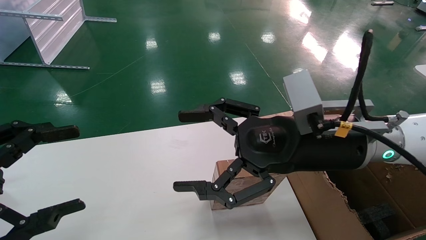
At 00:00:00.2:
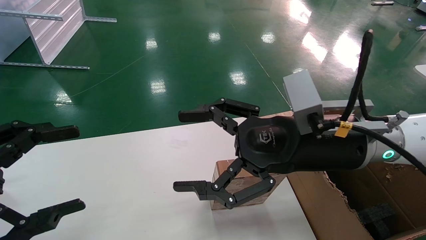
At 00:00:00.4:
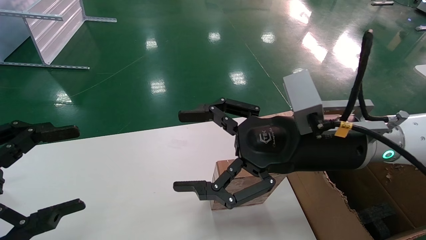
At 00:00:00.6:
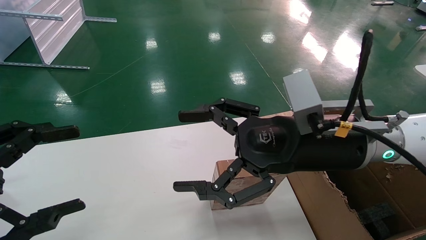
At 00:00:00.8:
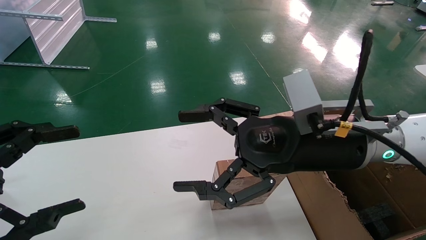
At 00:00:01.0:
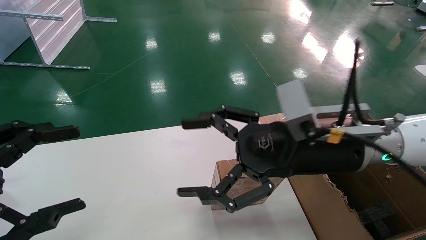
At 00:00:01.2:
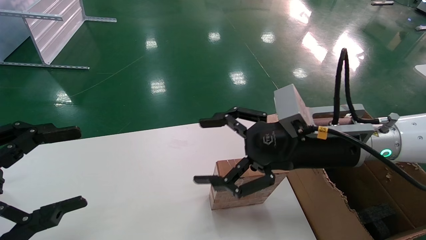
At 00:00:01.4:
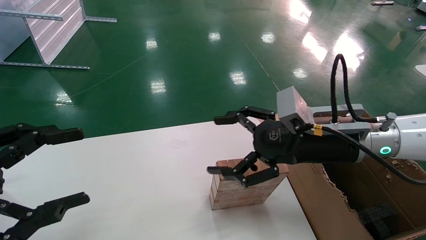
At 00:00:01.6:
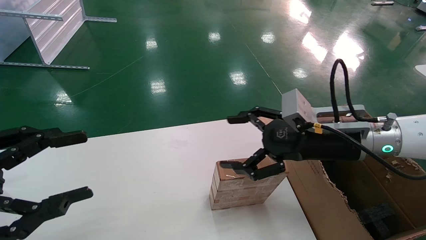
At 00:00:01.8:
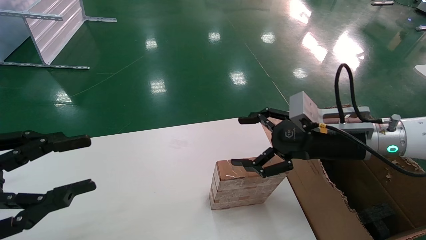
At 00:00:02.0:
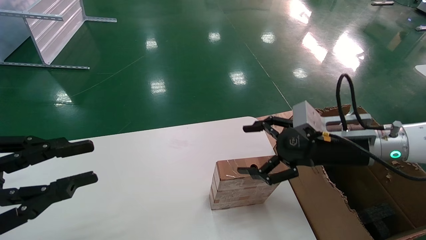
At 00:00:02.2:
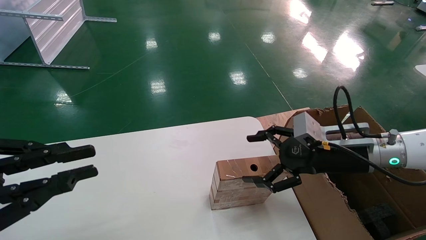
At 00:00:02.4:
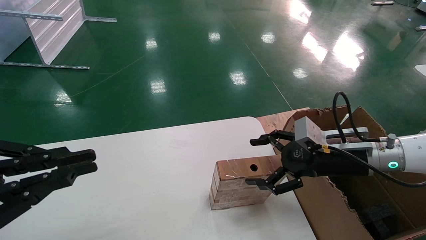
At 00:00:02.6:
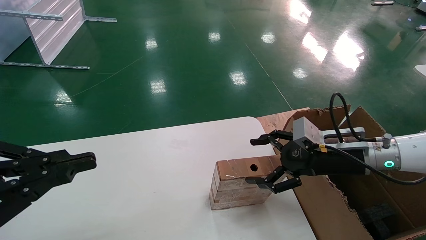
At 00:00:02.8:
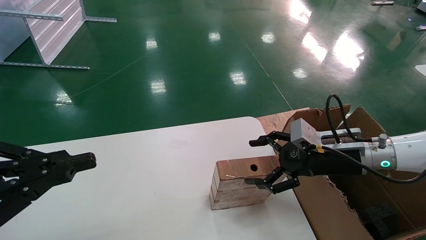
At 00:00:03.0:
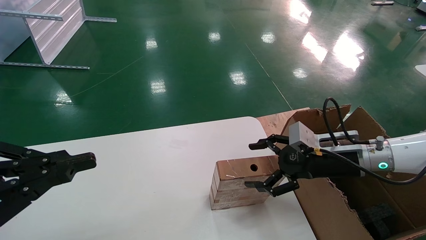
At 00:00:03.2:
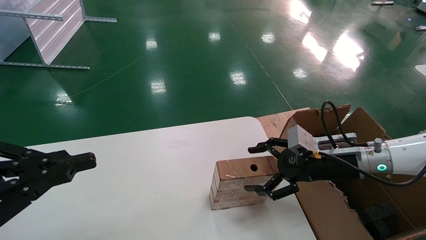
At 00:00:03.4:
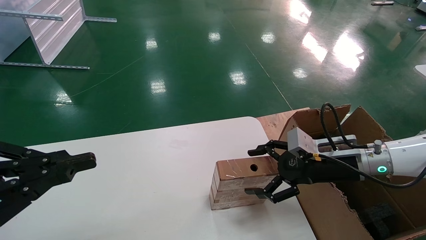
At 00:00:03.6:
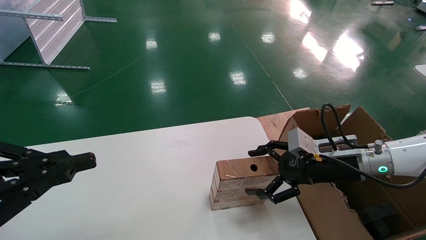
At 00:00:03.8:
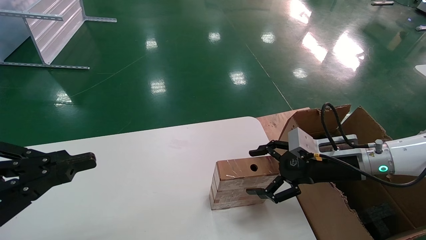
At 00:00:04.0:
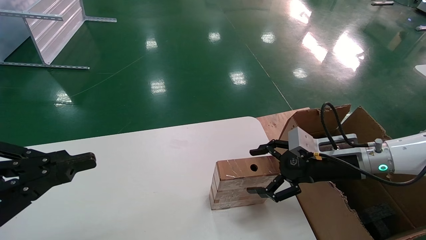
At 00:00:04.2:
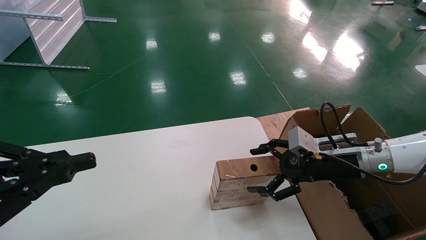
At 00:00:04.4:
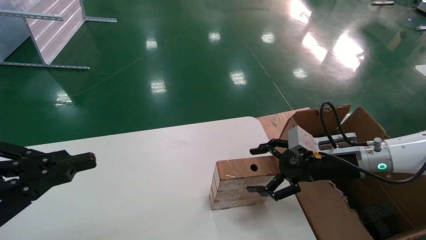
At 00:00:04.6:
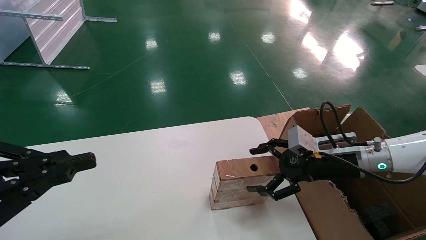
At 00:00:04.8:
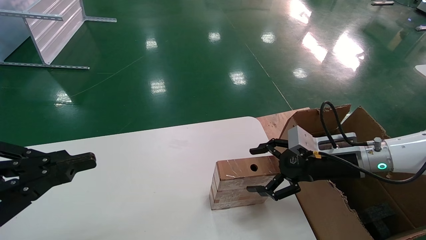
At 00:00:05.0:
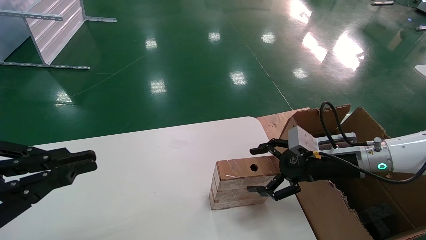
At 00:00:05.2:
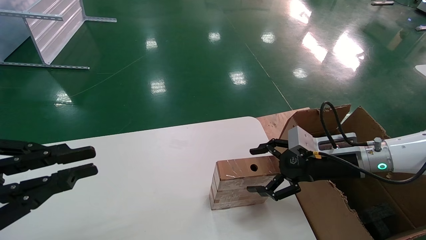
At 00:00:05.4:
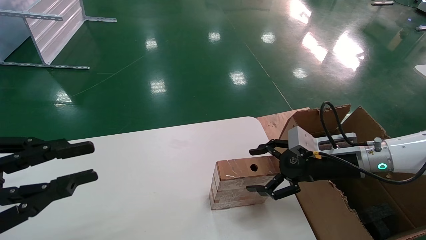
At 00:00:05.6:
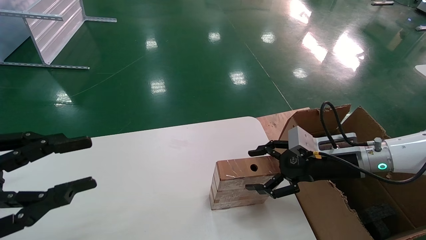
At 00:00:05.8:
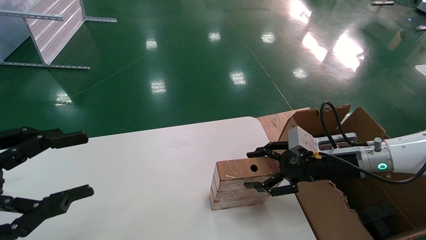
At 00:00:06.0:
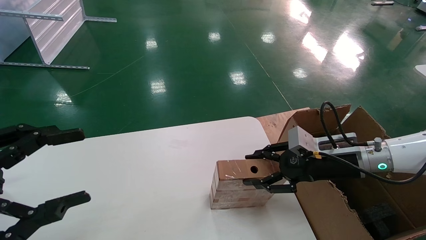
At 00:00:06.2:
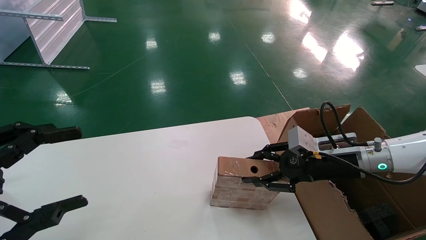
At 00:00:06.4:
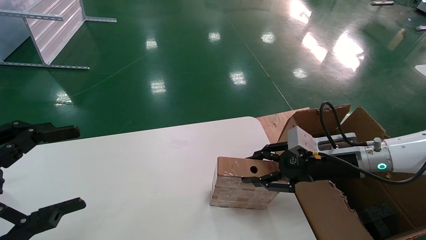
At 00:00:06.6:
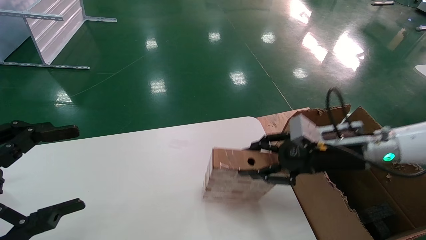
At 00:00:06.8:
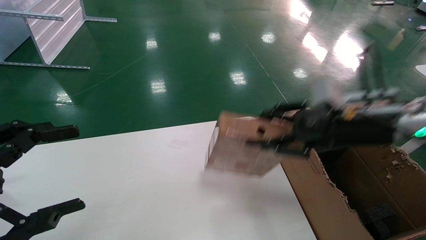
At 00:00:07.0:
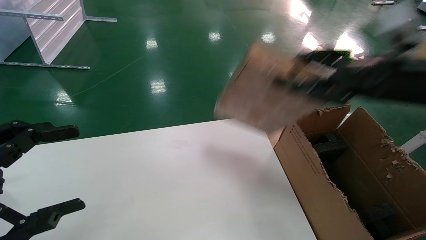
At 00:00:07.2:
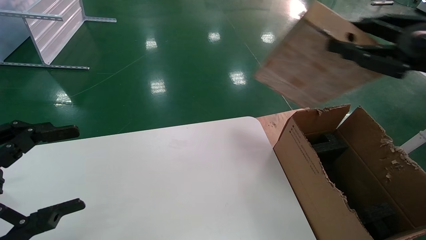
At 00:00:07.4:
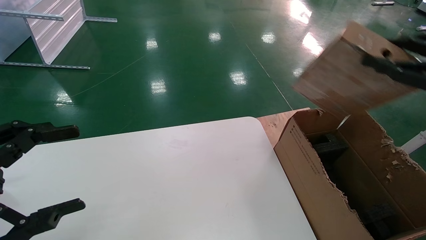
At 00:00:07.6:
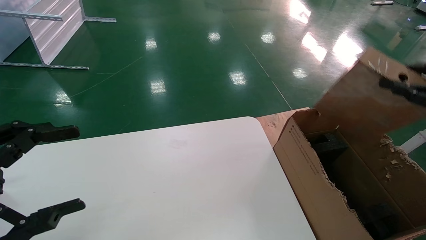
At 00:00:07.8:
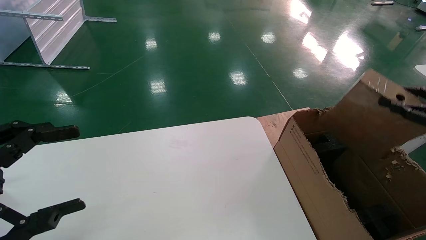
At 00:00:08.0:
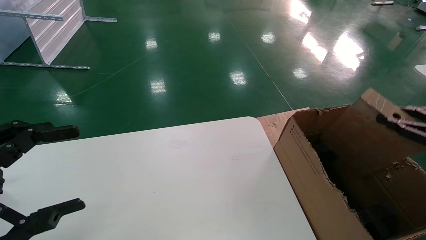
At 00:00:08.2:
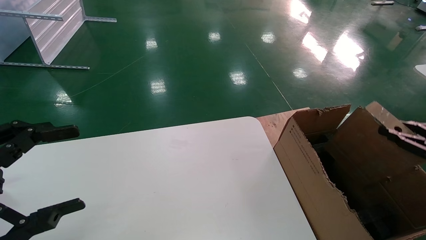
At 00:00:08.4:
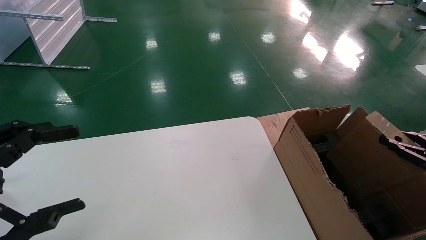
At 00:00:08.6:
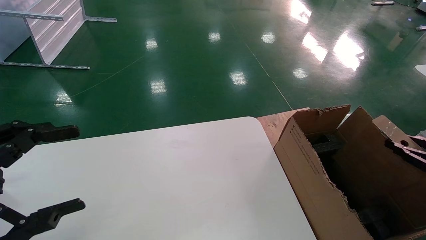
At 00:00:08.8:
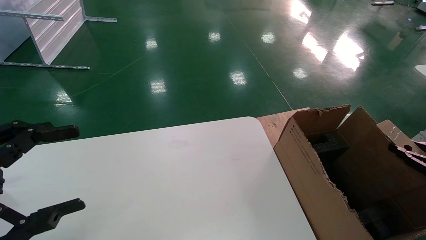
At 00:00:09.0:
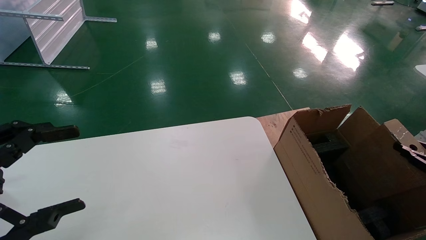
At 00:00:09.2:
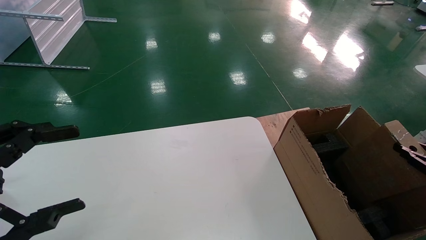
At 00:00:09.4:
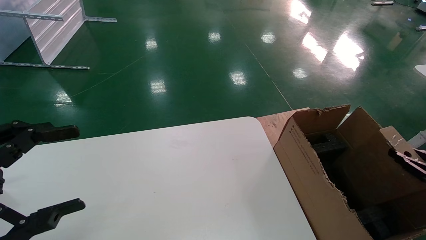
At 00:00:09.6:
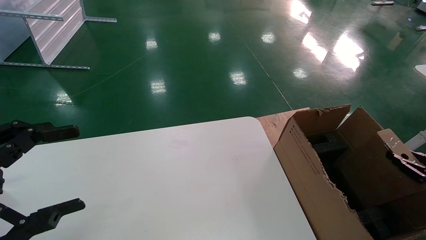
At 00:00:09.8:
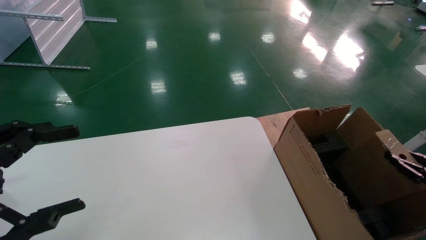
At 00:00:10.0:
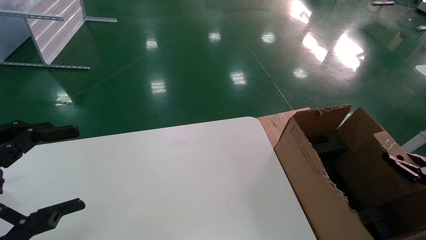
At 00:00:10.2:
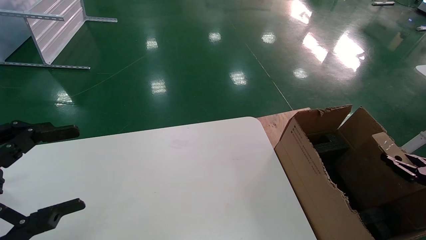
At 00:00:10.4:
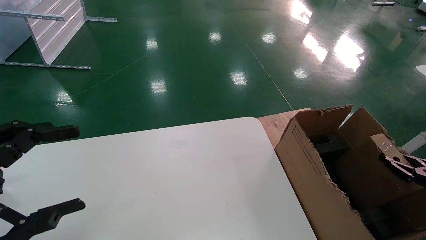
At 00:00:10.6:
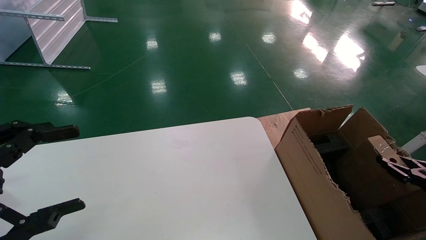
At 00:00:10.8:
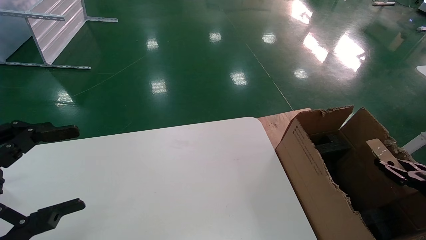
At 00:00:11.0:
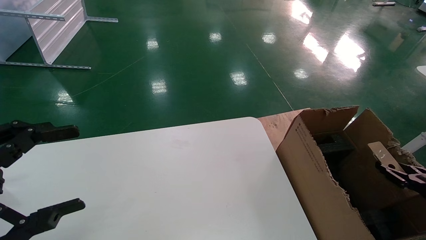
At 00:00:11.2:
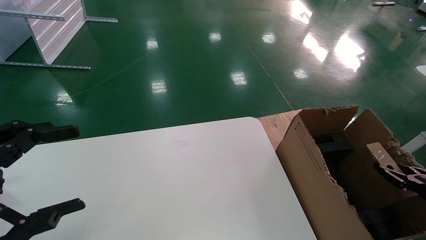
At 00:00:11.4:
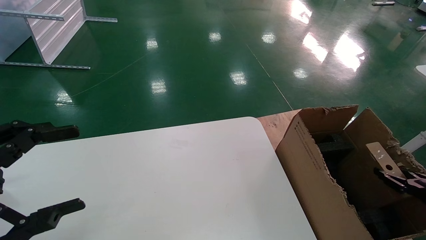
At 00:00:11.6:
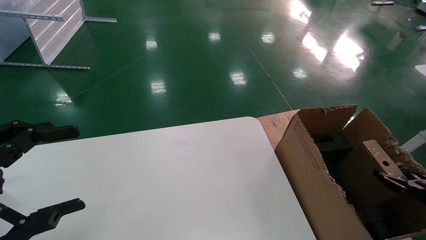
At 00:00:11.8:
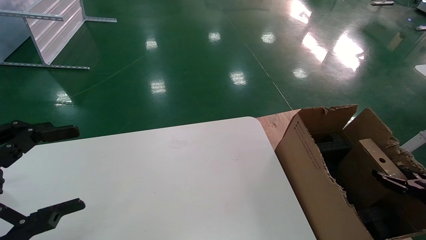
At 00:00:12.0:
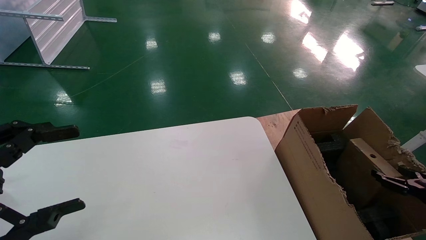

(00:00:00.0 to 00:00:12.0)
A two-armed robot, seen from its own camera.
Task of the whole recording: put the box on the table into the big box.
Step, 00:00:01.4 - 00:00:06.2: Pick up the mouse and the power cord paper box.
Step, 00:00:06.4 - 00:00:11.8: Place the mouse and the power cord paper box into the container.
00:00:00.0 - 00:00:01.6: The right gripper travels to the right by about 5 cm.
00:00:01.6 - 00:00:03.0: The left gripper closes its fingers. Meanwhile the right gripper travels downward and to the right by approximately 10 cm.
00:00:03.0 - 00:00:04.4: Both grippers stay put.
00:00:04.4 - 00:00:06.0: The left gripper opens. The right gripper closes up.
00:00:06.0 - 00:00:07.6: The right gripper shifts some 25 cm to the right, backward and upward, and closes.
00:00:07.6 - 00:00:09.0: The right gripper moves downward, approximately 20 cm.
00:00:09.0 - 00:00:10.4: The right gripper moves roughly 5 cm.
00:00:10.4 - 00:00:12.0: The right gripper opens.

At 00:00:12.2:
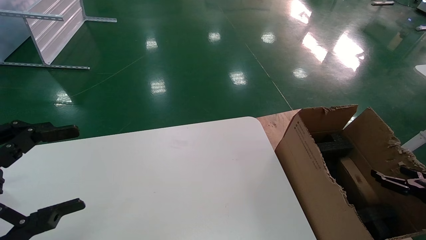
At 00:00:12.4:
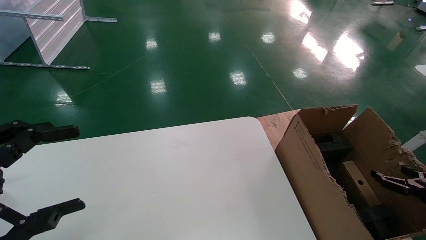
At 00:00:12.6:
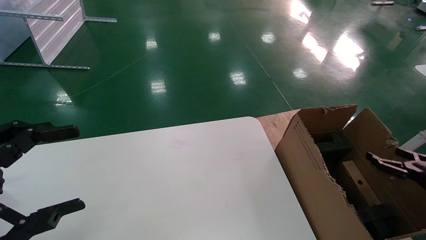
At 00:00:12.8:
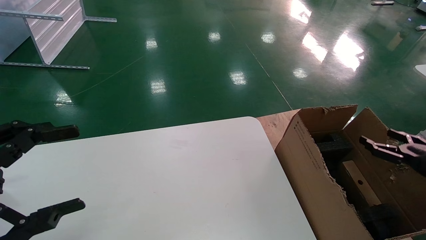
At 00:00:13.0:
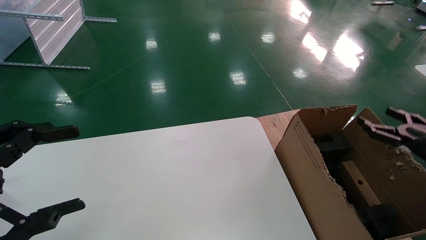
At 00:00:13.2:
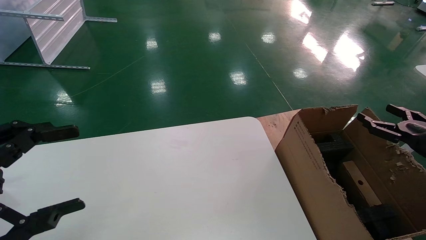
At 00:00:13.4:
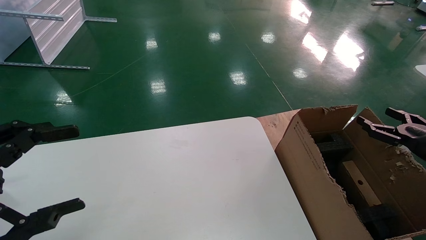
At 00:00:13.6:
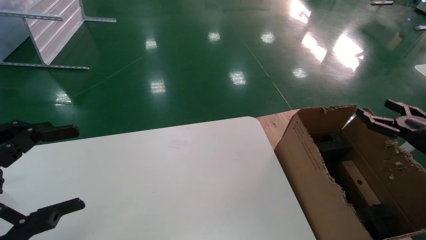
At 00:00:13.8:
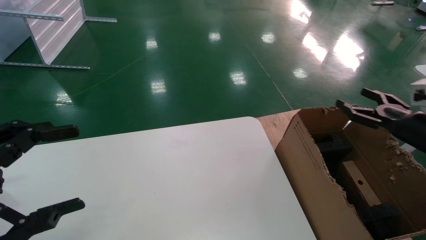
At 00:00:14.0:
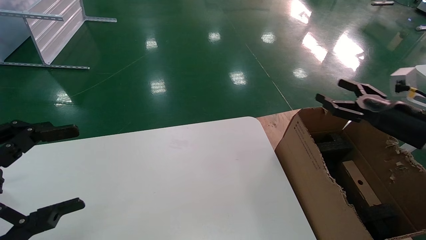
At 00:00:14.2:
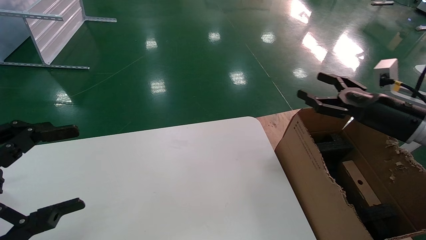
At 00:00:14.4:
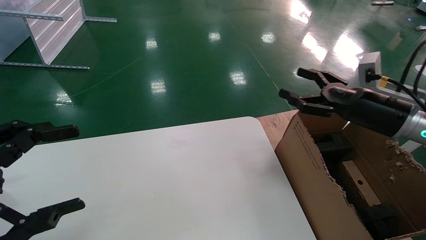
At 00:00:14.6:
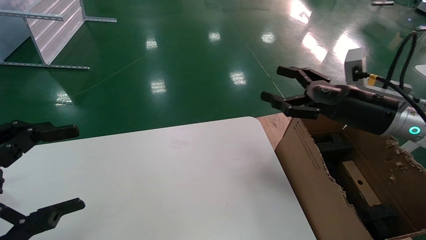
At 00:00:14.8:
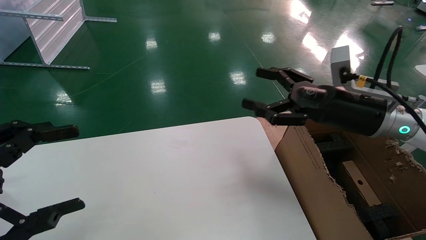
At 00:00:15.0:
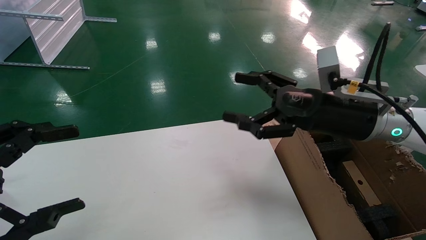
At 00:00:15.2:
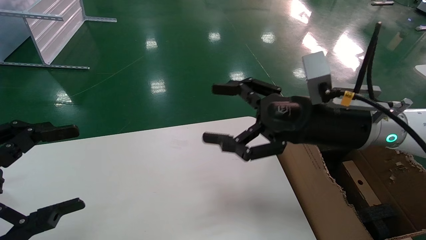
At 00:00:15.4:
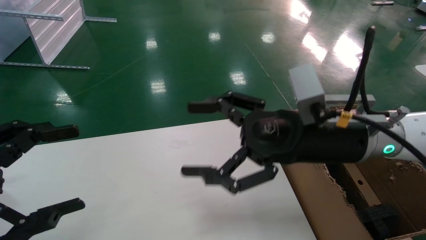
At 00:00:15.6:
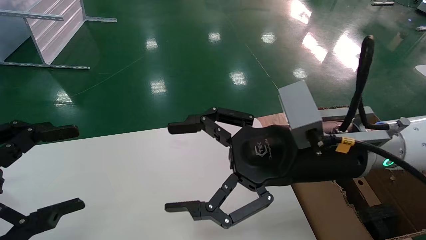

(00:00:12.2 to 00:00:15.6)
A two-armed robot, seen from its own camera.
Task of the whole recording: put the box on the table into the big box.
00:00:12.2 - 00:00:13.8: The right gripper shifts approximately 15 cm upward, forward and to the left.
00:00:13.8 - 00:00:15.6: The right gripper goes approximately 30 cm to the left.
